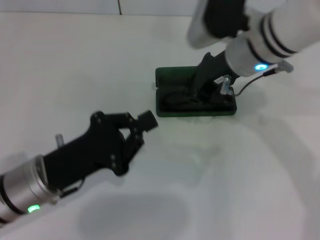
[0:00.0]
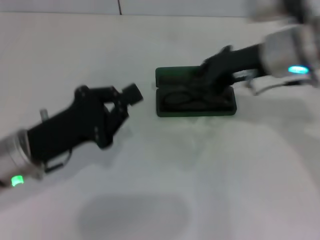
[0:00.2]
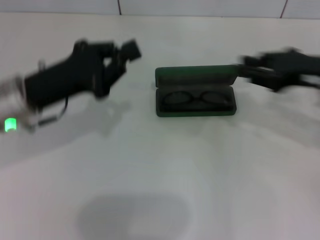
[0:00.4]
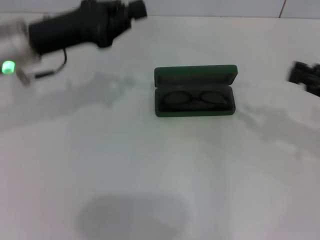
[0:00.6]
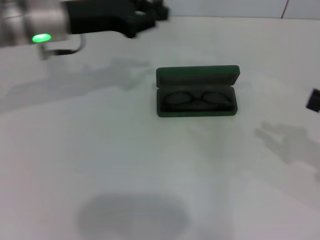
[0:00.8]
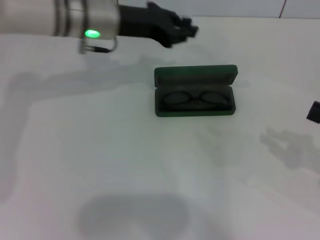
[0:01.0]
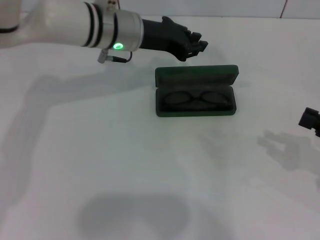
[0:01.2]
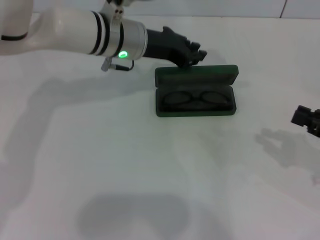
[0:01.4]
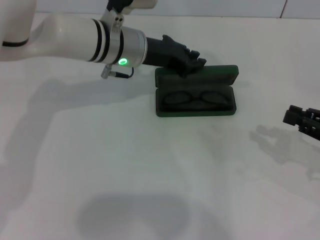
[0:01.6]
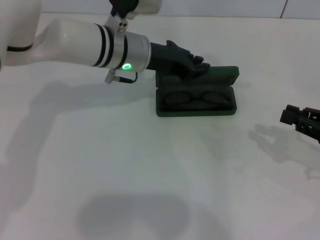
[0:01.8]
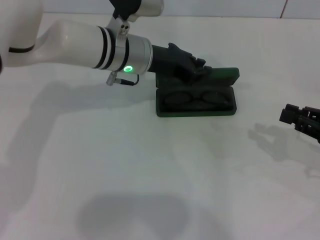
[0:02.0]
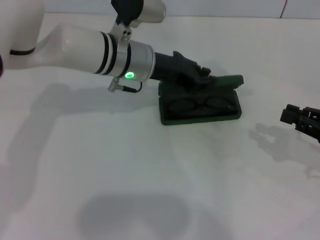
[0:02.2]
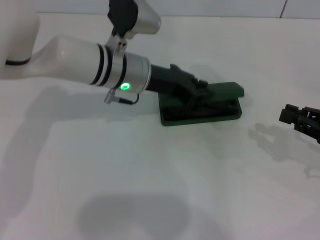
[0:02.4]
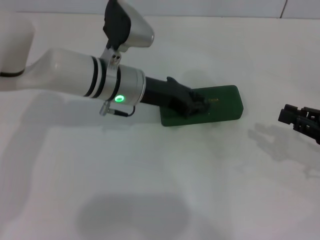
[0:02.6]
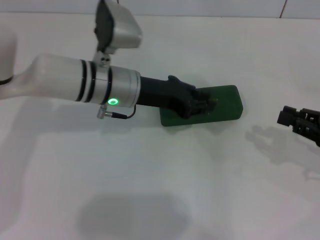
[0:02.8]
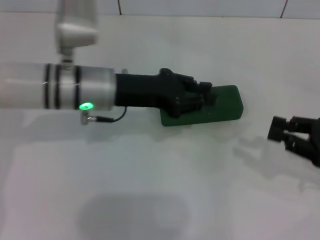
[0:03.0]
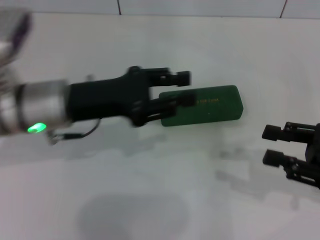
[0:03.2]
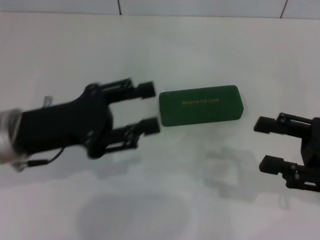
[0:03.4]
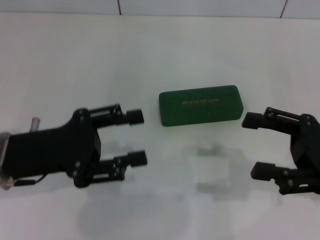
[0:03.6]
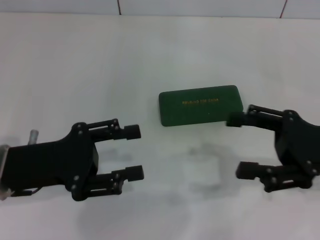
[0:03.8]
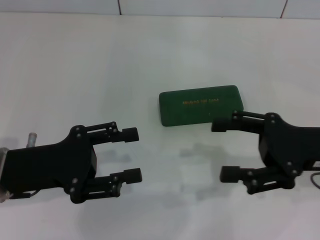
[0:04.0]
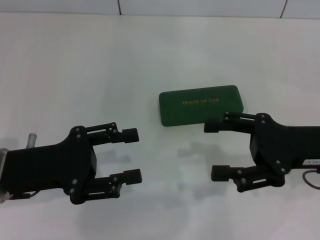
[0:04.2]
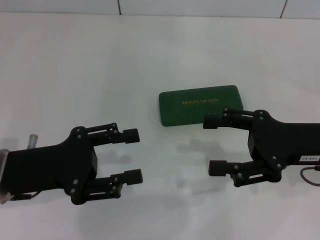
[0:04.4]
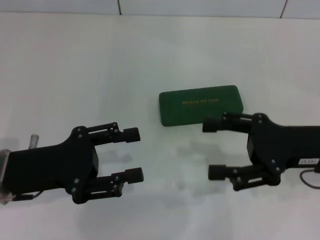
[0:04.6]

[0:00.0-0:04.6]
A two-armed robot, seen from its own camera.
Step, 0:00.2 to 0:02.8: Close the glasses case with your left hand.
0:00.0 to 0:01.6: The left gripper shifts approximately 25 cm forward and to the right; the right gripper travels to the right, backward and downward by approximately 30 cm.
0:01.6 to 0:03.0: The left gripper moves backward, about 10 cm.
0:03.0 to 0:04.6: The right gripper heads to the left, covering roughly 10 cm, and opens. The left gripper moves backward and to the left, about 15 cm, and opens its fingers.
